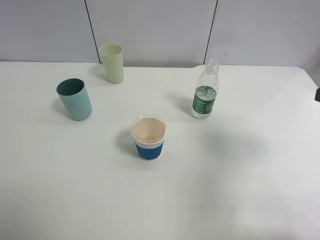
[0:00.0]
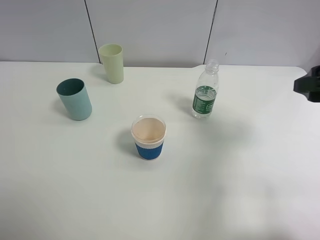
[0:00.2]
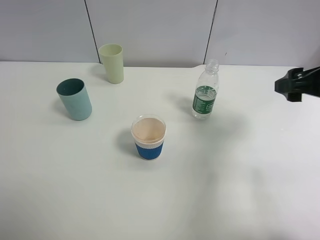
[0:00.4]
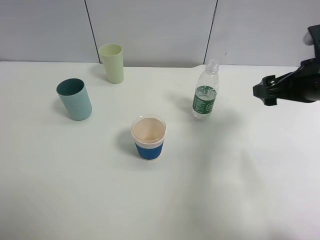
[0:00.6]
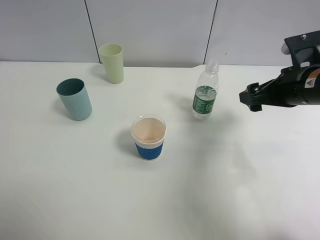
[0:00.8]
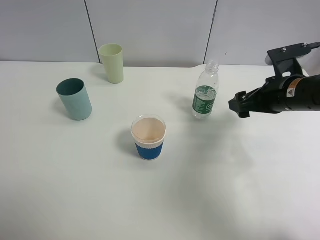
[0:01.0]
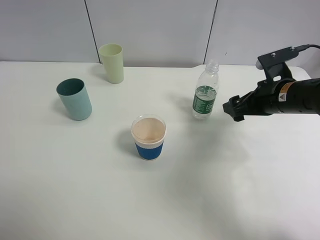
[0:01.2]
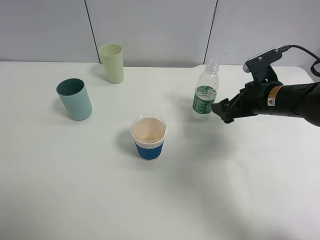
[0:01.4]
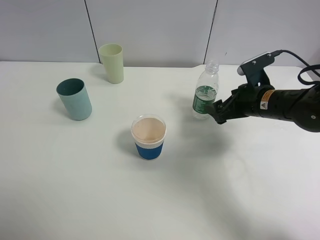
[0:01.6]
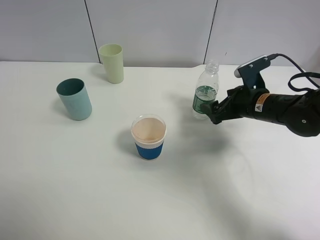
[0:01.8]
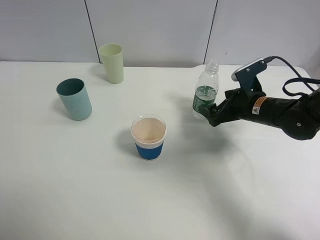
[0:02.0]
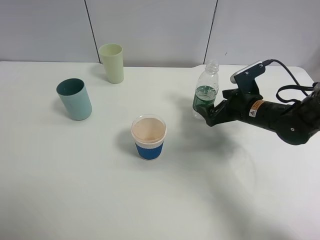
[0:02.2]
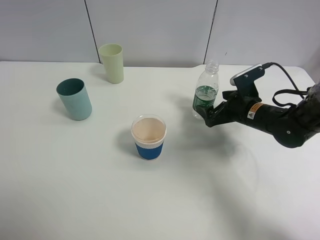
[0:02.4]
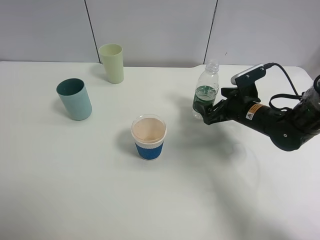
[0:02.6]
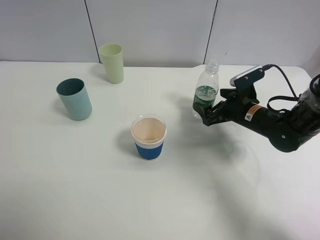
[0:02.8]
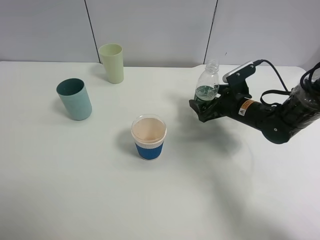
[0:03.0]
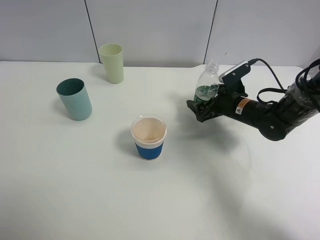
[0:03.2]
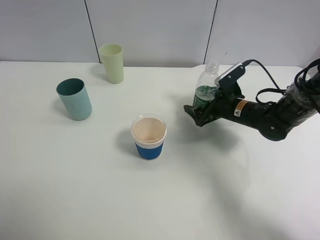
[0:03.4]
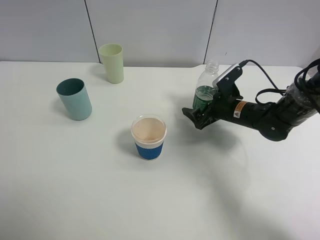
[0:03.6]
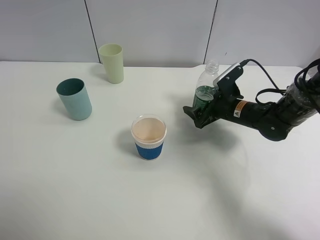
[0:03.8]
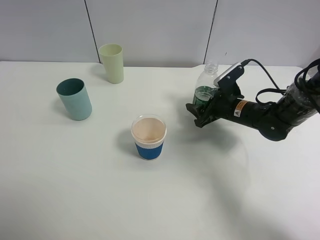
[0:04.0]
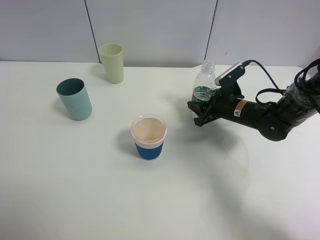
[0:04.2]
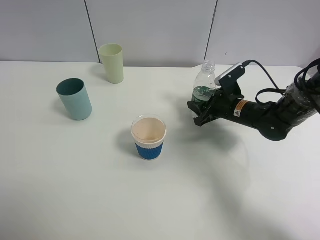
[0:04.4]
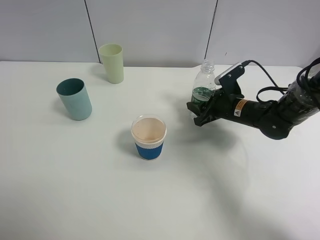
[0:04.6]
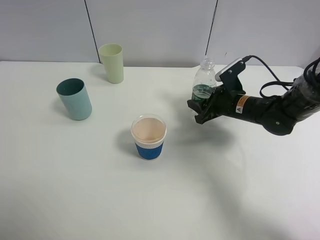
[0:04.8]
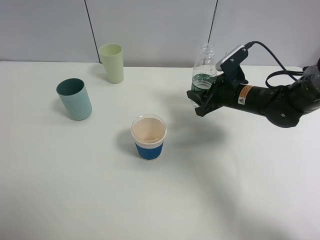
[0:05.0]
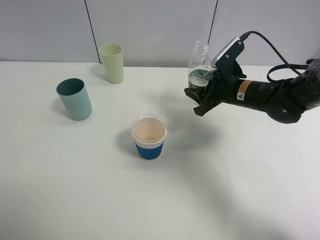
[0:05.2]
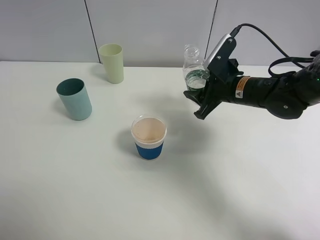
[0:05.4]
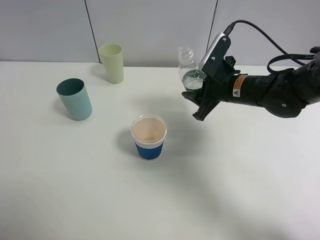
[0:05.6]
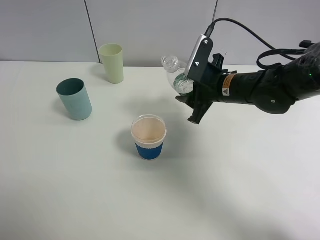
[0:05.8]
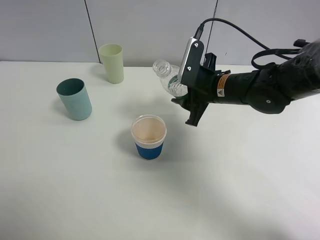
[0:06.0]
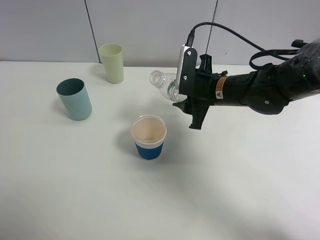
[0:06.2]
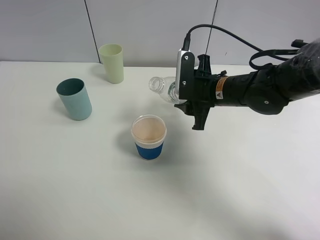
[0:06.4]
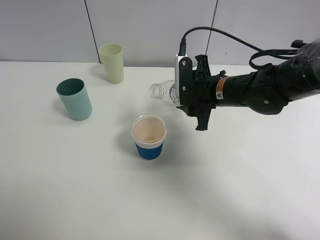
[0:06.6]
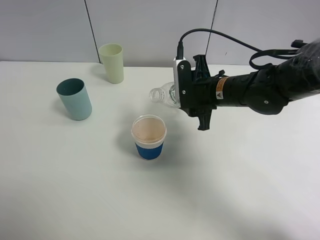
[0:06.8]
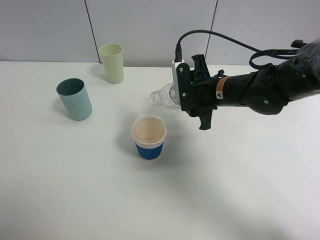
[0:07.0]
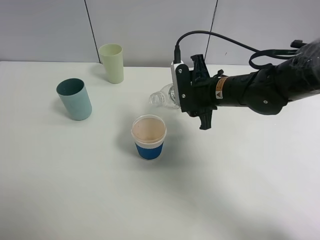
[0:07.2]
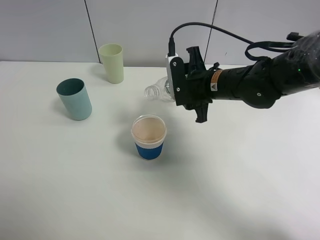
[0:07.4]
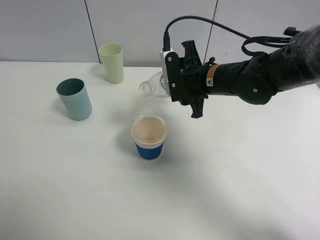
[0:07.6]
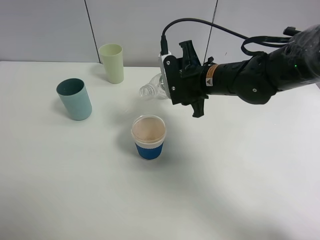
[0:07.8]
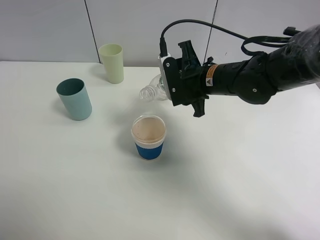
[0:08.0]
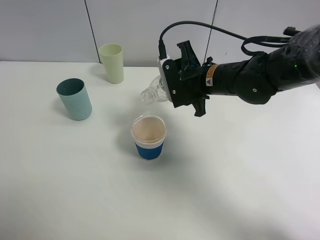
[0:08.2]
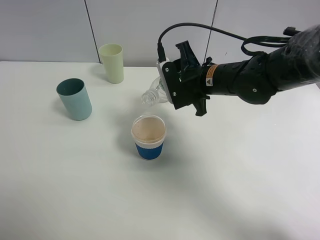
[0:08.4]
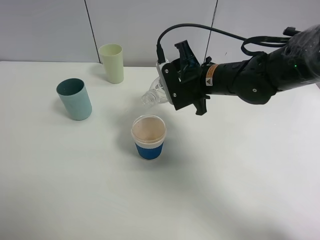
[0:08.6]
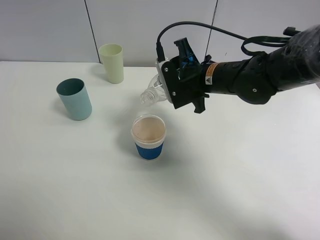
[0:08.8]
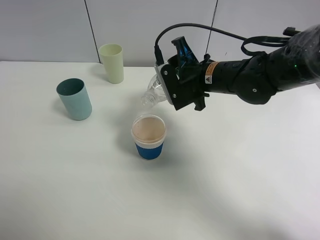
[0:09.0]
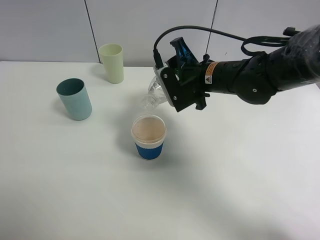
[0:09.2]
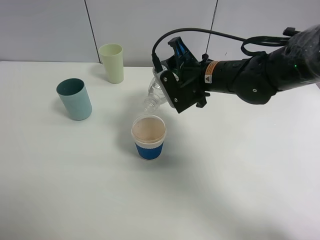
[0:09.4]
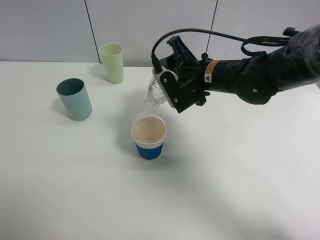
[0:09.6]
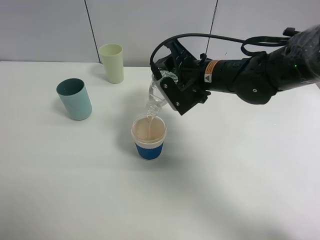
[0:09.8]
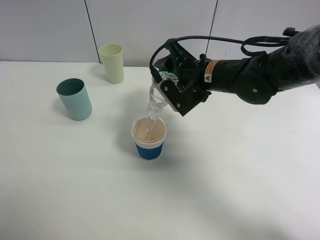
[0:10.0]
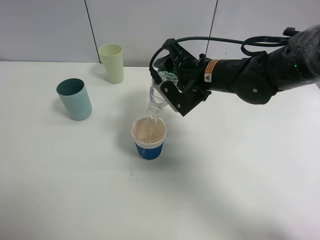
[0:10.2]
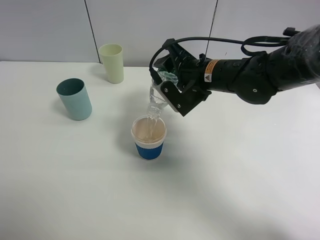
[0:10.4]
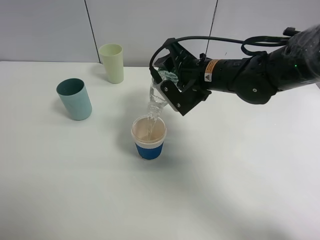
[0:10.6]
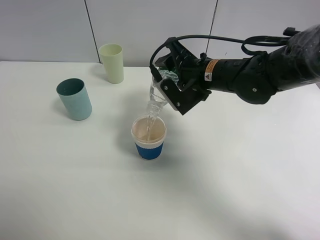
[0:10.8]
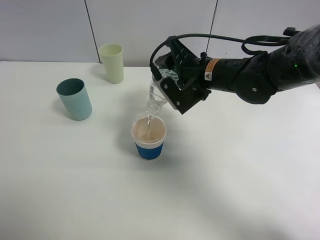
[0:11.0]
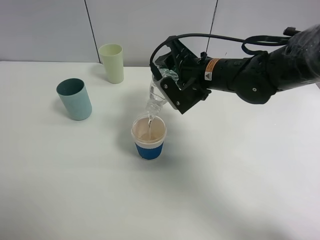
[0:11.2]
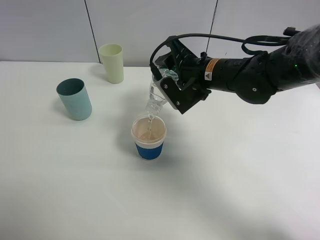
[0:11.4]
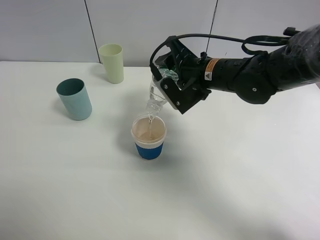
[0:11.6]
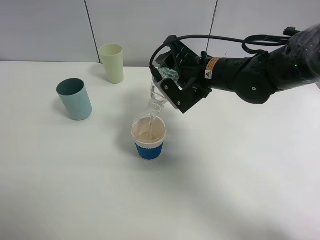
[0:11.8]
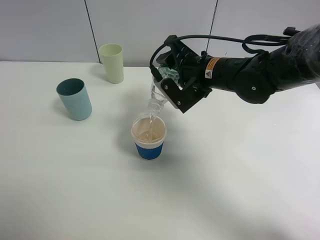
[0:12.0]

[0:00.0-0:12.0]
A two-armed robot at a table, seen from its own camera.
Task of the whole recording: use a clamp to hold the bottle of the drink, pour the beverage into a random cup, then clamp the cup containing the drink and pour the drink into another random cup.
Step, 0:00.0 to 0:05.2: Pick up the water bottle with right gripper.
0:00.0 to 0:01.6: The right gripper goes roughly 20 cm downward, forward and to the left.
0:01.6 to 0:03.0: The right gripper shifts some 5 cm downward.
0:03.0 to 0:04.4: The right gripper closes up.
0:04.4 to 0:06.0: The right gripper travels upward and to the left by approximately 10 cm.
0:07.6 to 0:09.0: The grippers move only a little.
0:09.0 to 0:10.4: The grippers stay close to where they were, moving slightly.
0:10.4 to 0:12.0: Neither gripper changes place.

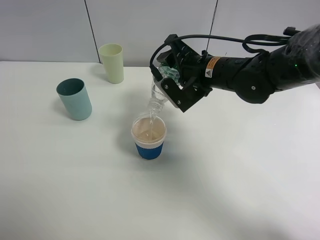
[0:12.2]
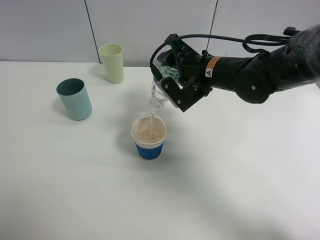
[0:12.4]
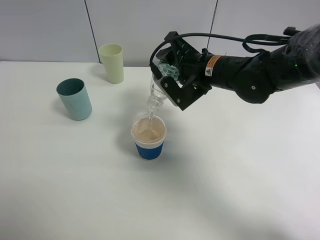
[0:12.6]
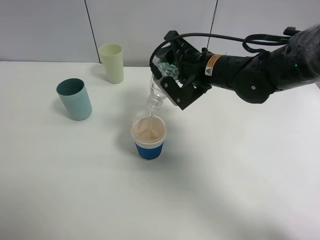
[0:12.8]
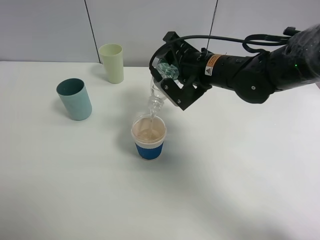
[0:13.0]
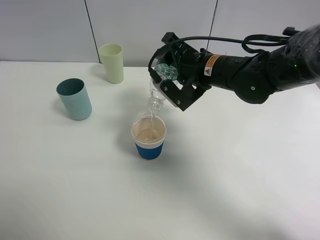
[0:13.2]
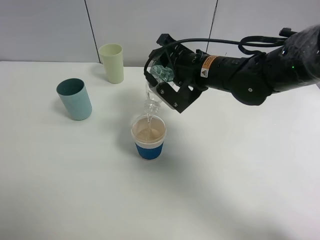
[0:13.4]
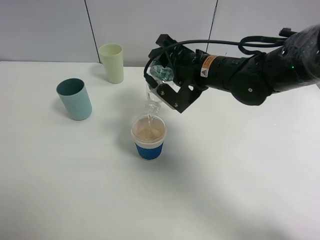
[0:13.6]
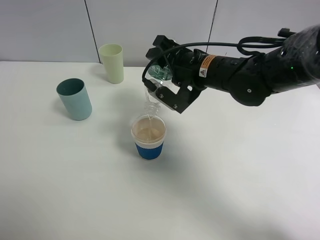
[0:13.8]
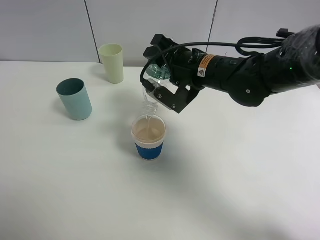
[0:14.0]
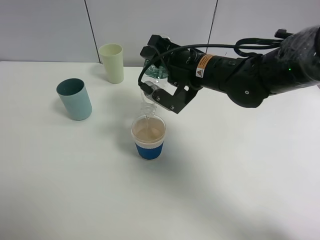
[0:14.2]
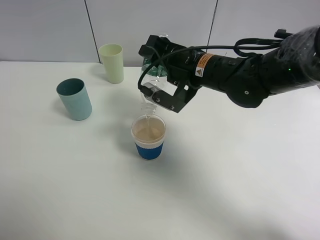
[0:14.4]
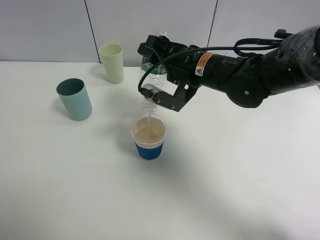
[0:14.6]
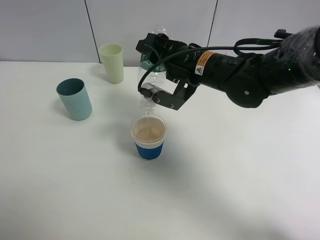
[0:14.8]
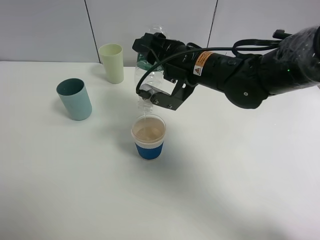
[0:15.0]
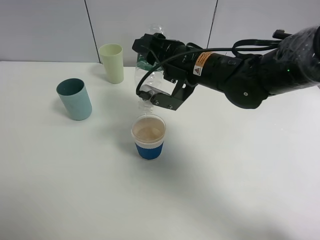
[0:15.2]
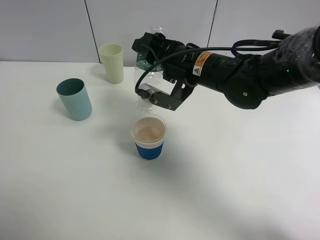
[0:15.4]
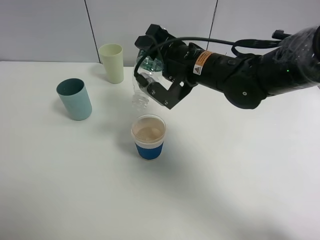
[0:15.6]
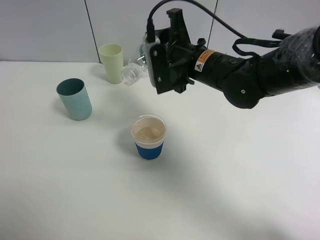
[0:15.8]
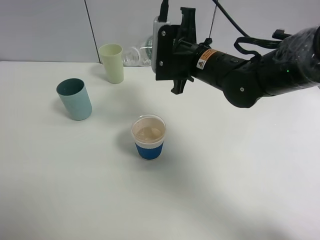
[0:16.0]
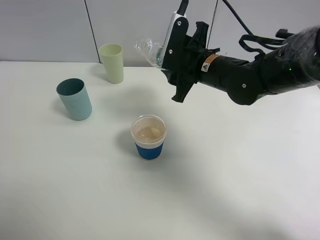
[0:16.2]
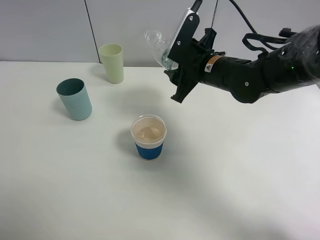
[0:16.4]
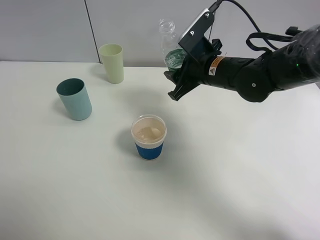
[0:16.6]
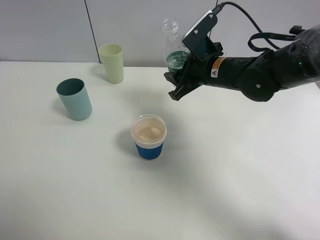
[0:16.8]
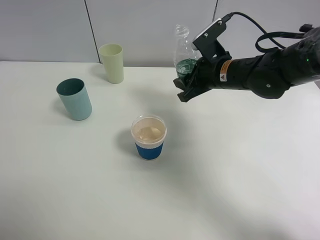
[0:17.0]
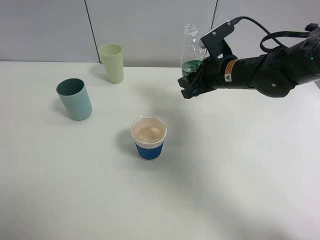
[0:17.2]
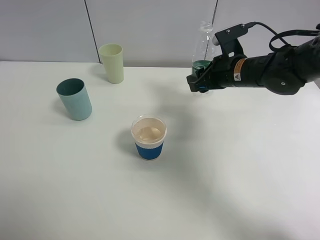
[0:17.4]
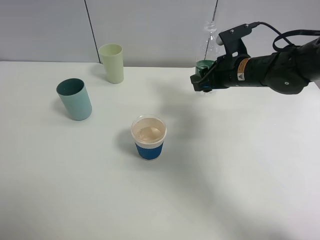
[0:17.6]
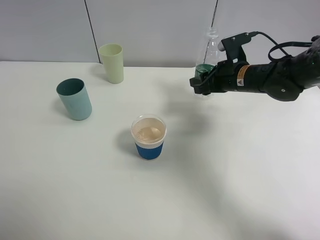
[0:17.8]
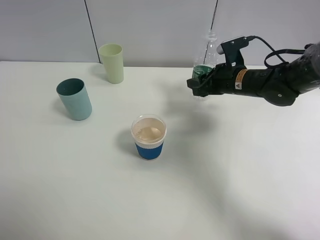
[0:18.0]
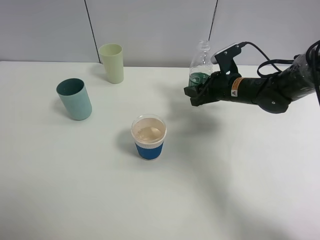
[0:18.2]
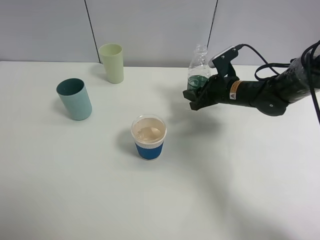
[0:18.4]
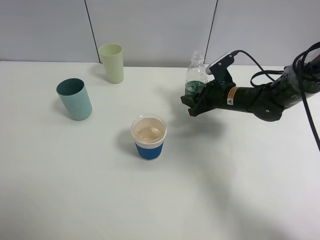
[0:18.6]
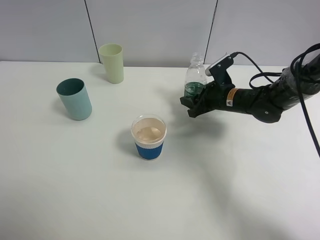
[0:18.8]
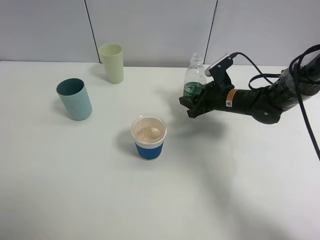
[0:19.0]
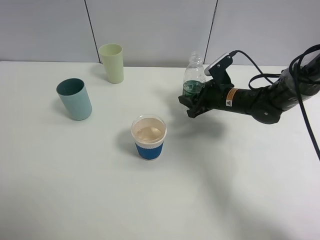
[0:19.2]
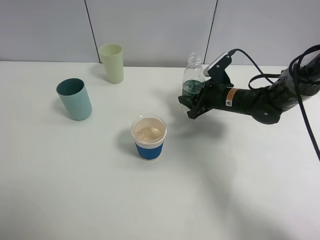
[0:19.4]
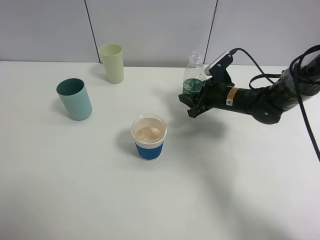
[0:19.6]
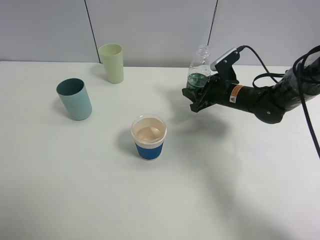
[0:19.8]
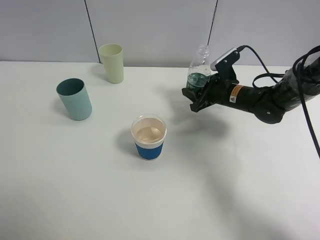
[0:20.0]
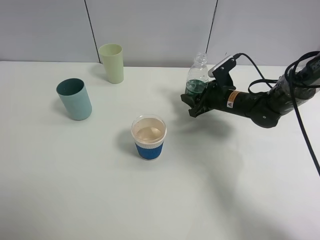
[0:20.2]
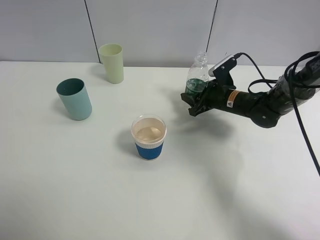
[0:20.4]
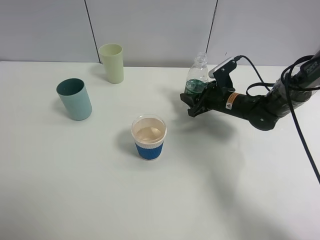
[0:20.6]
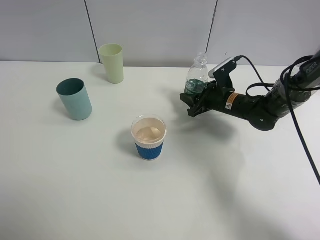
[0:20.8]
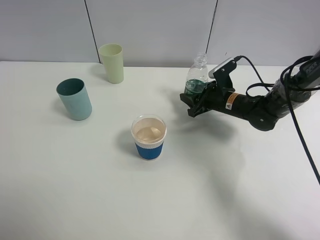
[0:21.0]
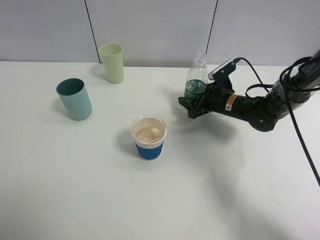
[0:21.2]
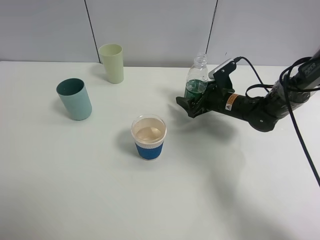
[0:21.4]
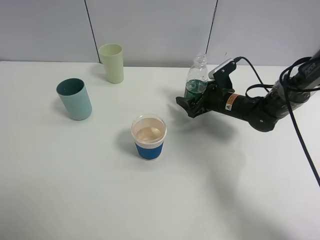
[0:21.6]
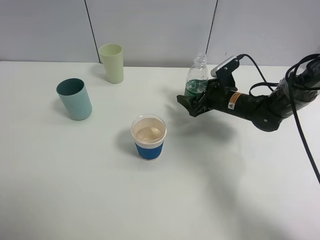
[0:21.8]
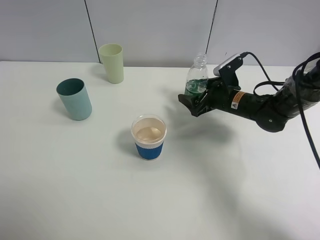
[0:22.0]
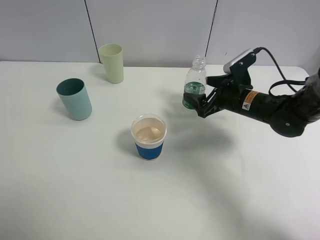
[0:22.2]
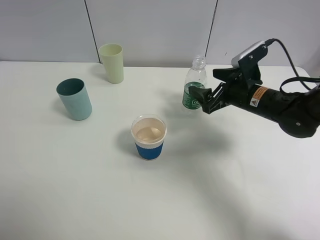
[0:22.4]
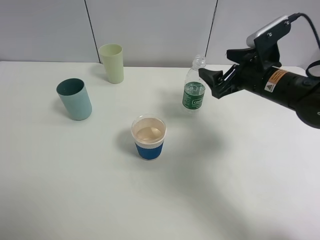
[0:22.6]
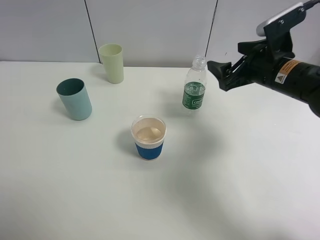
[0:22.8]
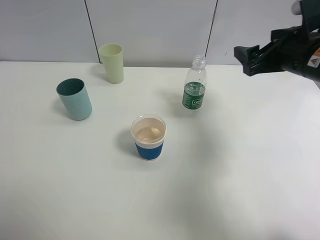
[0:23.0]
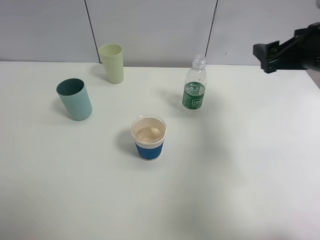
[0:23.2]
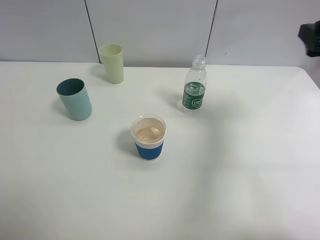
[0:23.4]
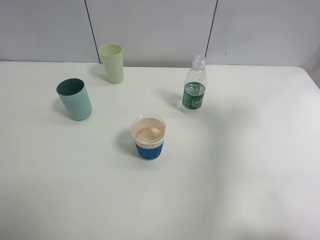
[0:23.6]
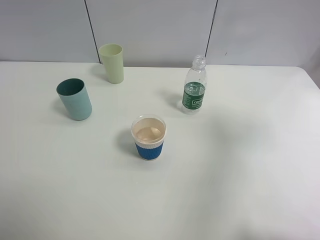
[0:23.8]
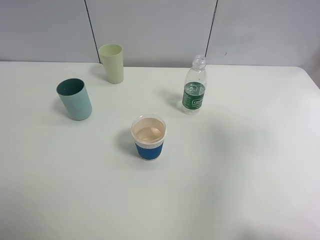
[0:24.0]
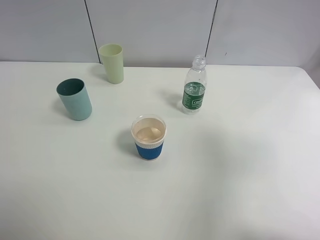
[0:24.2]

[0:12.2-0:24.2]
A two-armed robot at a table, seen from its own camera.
Task of the whole recording: use a clamp to hold the bottle of the drink, pour the beverage into a random cup, then clamp the cup containing the drink and pour the drink into another random cup.
Step, 0:12.2 to 0:15.8: Pour water into the paper cup with right gripper.
Step, 0:16.0 to 0:22.4: Place the paper cup on the table with right gripper.
0:12.2 to 0:13.8: The grippers move only a little.
0:13.8 to 0:15.2: There are only small adjustments of the grippers.
0:15.2 to 0:16.6: The right gripper changes place by about 5 cm.
0:16.6 to 0:18.2: The right gripper travels downward and to the right by some 10 cm.
0:18.2 to 0:19.8: The grippers make only small movements.
0:19.8 to 0:21.2: The right gripper opens its fingers.
0:21.2 to 0:22.6: The right gripper shifts some 15 cm upward and backward.
0:22.6 to 0:24.2: The right gripper shifts some 30 cm backward, upward and to the right.
